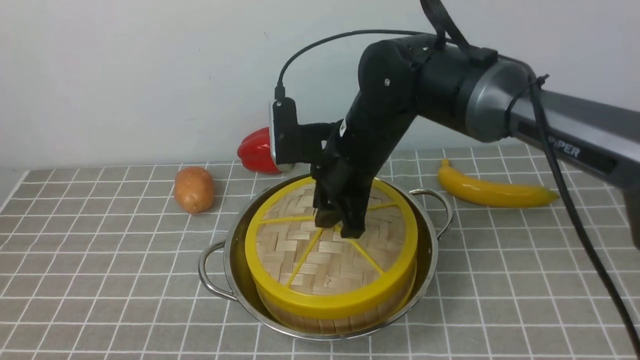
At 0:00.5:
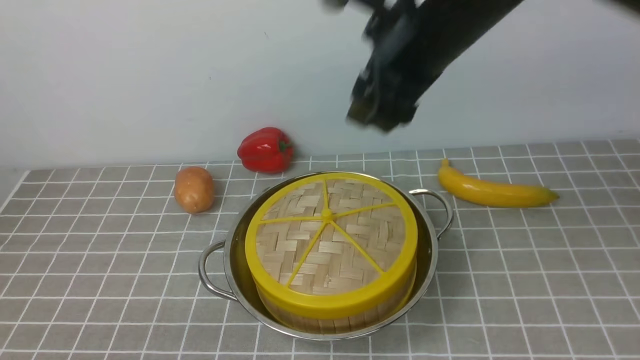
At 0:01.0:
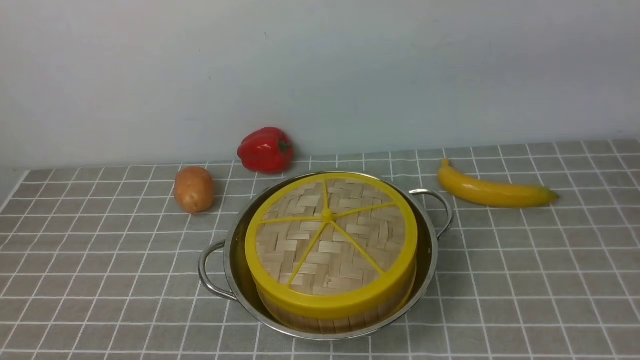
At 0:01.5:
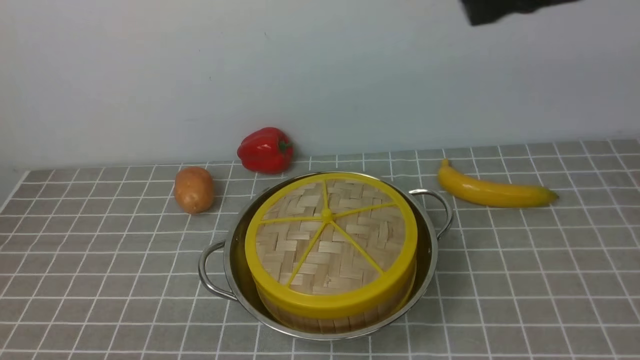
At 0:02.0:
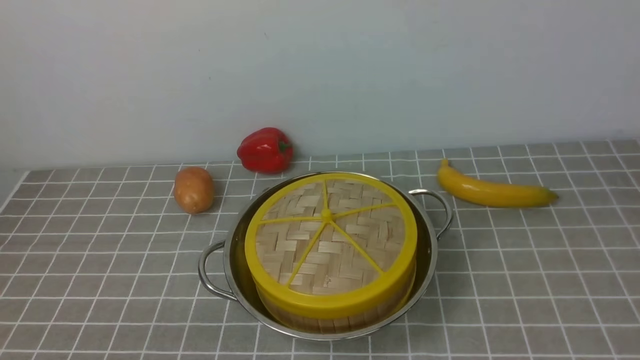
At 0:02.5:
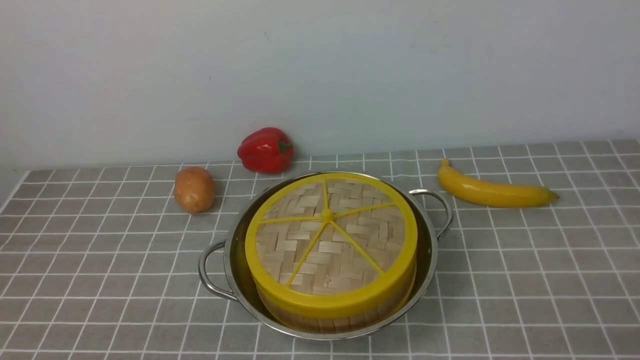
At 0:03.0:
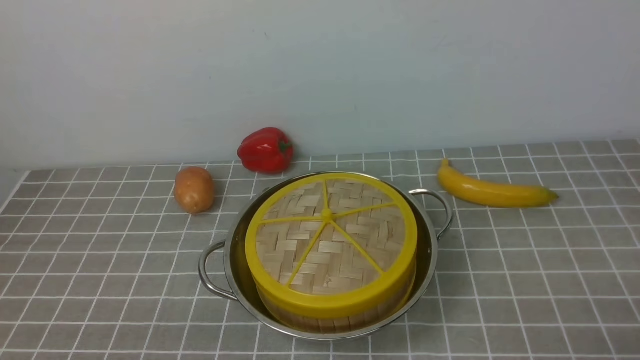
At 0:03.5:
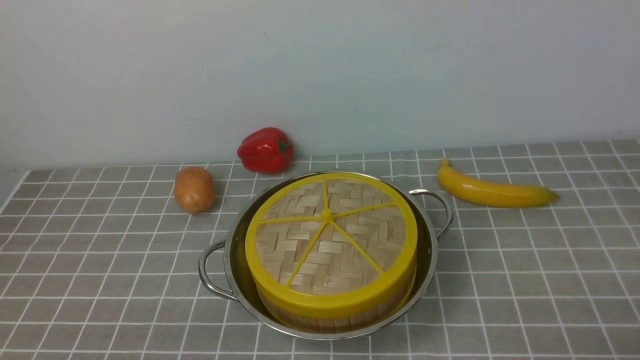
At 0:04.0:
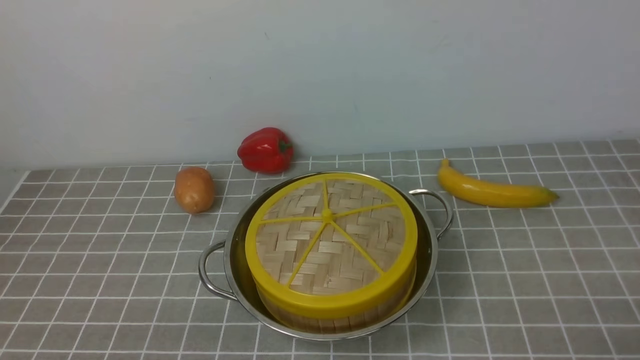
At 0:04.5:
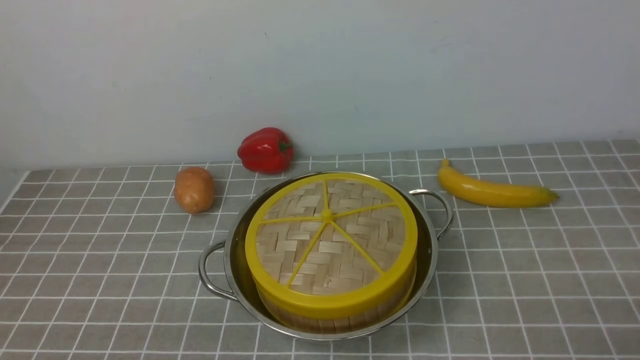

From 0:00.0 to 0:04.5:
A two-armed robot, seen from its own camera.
Task of the whole recording: place the steamer in the pot on the grey tablecloth, and put the lid on the steamer.
From 0:00.0 to 0:02.0: The right gripper moves to the right and backward, about 40 cm, and closes its fingers.

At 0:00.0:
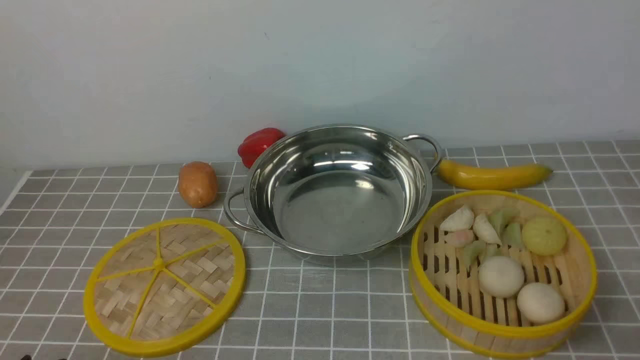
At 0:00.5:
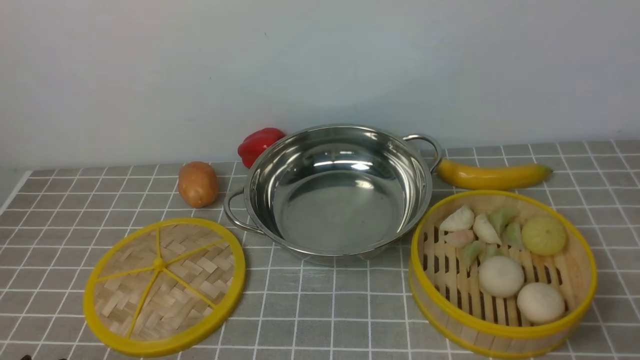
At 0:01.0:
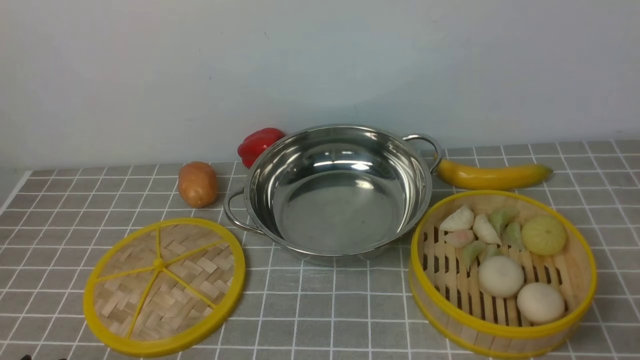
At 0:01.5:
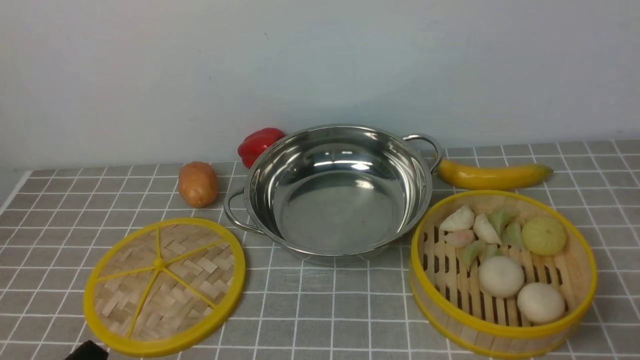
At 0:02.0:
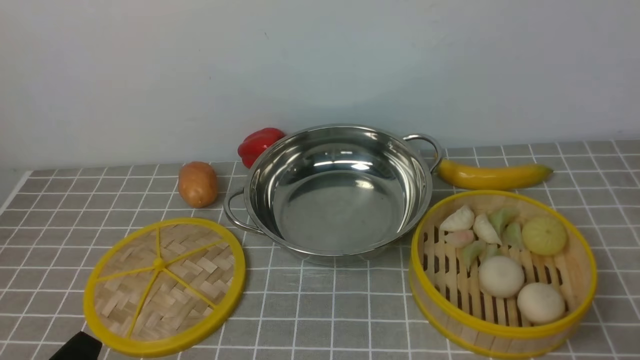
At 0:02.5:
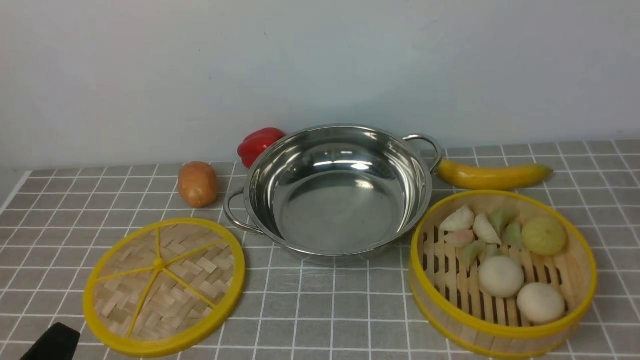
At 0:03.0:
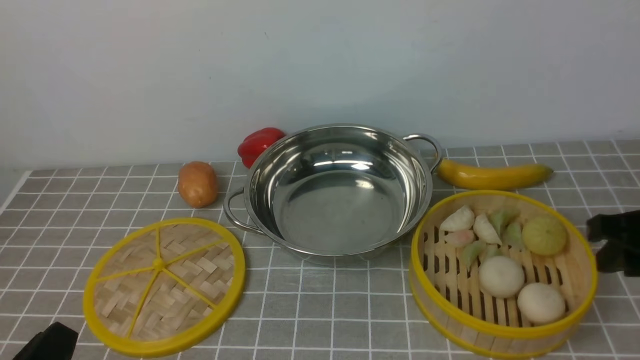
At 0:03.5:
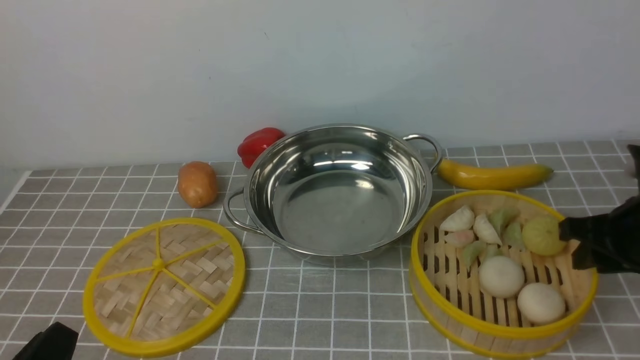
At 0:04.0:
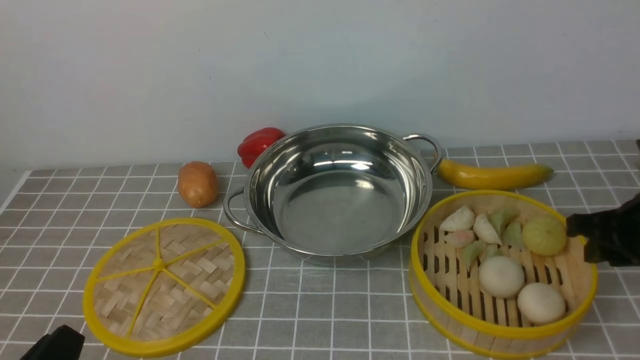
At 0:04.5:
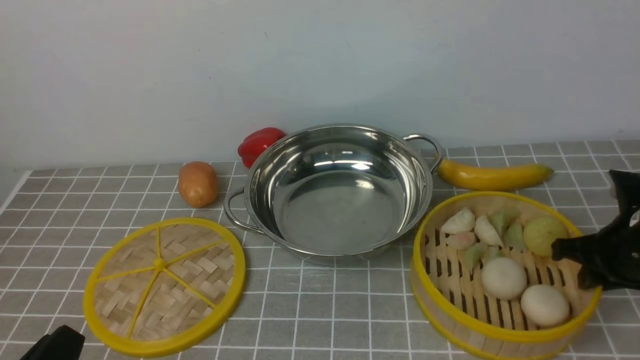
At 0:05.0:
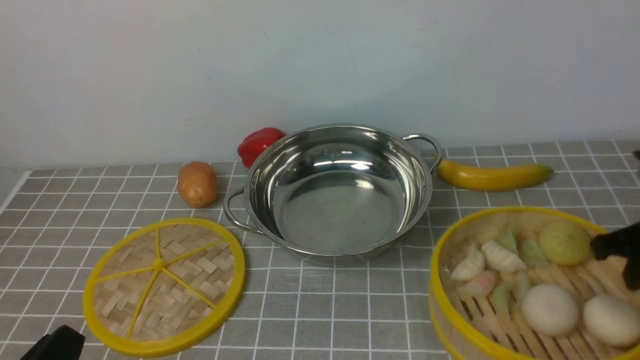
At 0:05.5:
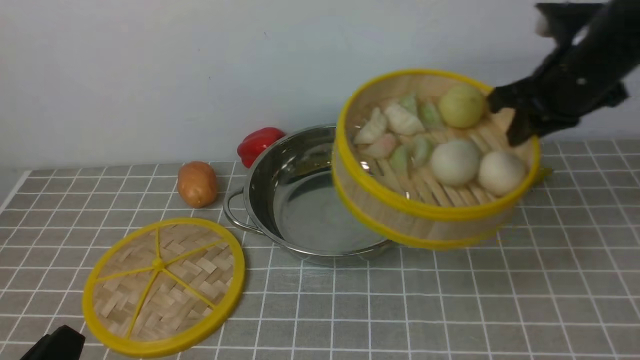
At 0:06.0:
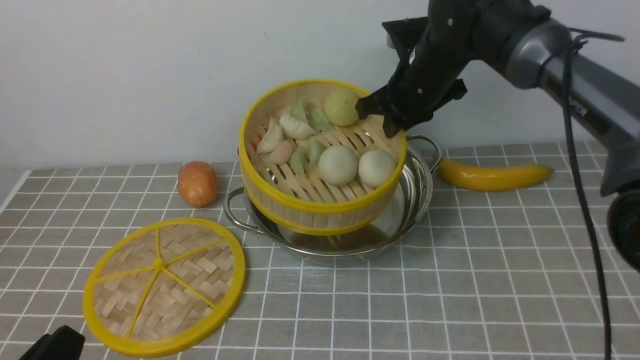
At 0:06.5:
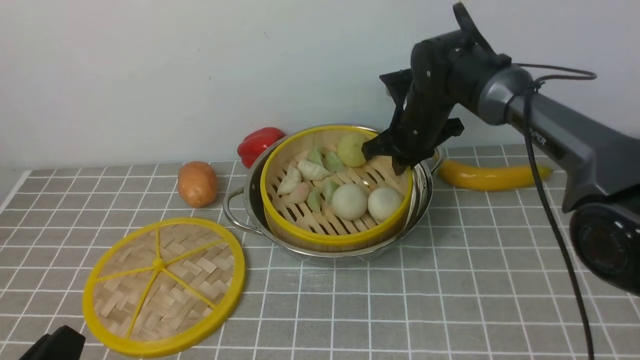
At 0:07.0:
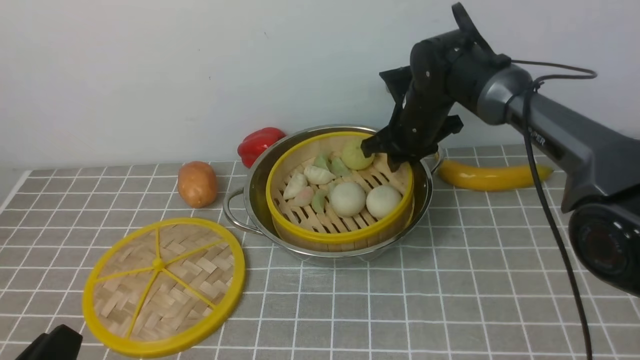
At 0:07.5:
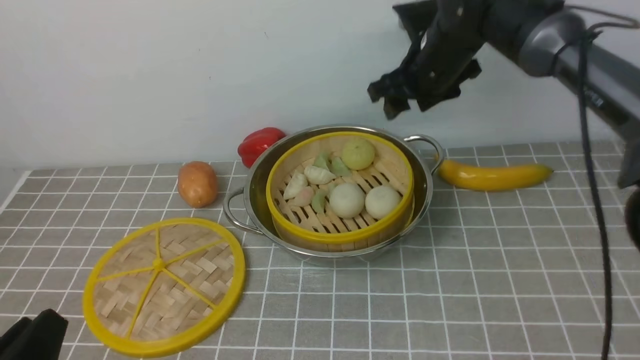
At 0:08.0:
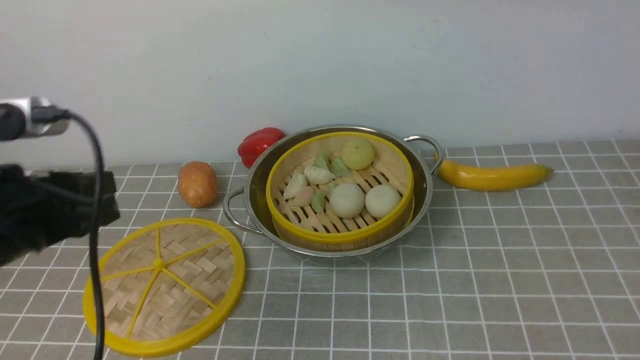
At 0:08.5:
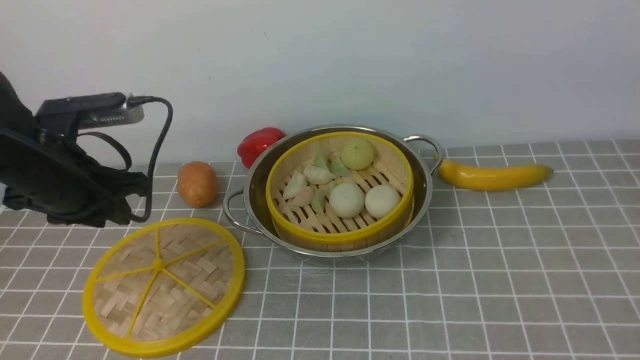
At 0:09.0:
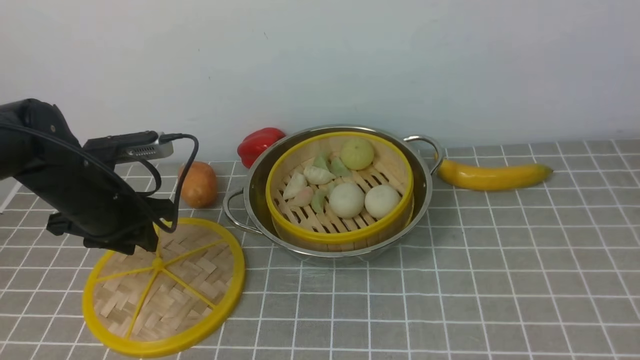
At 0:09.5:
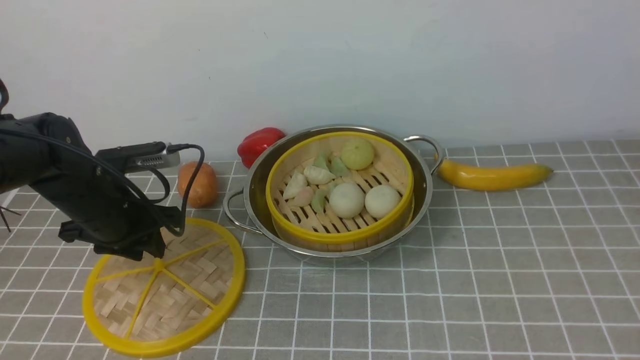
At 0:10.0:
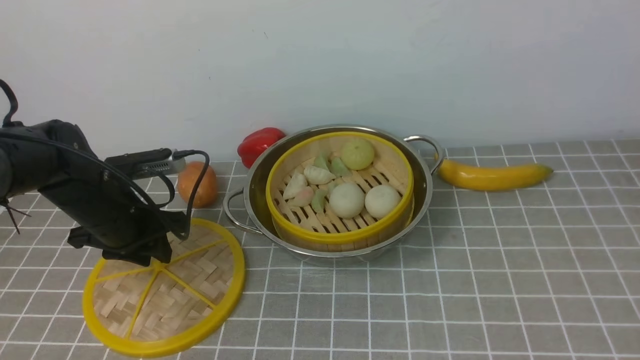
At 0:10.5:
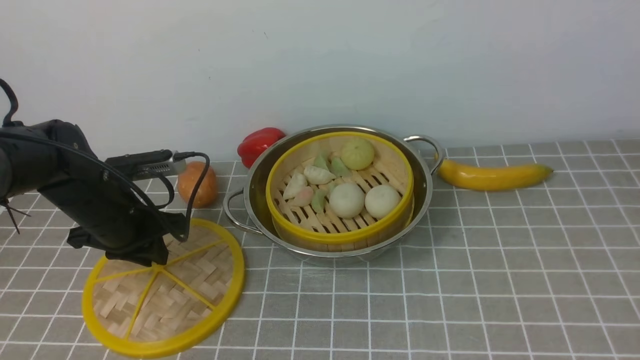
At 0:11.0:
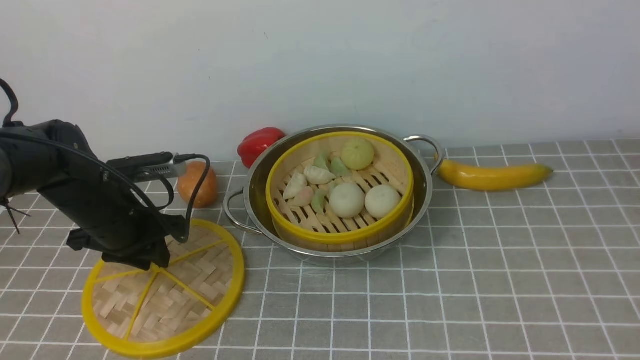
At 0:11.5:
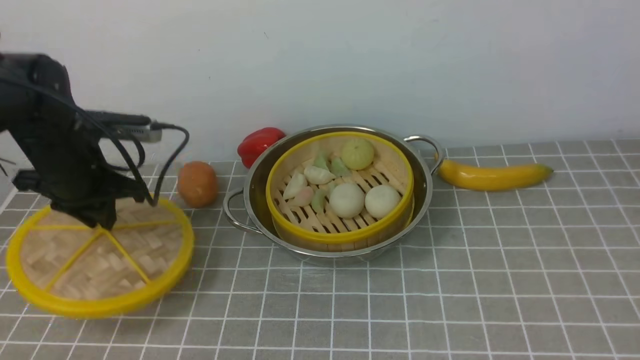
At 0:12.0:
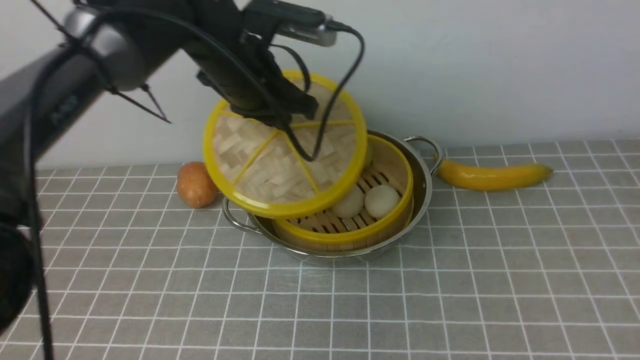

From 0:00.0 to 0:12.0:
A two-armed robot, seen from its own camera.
Task of the whole recording: place the steamer in the pot on the grey tablecloth, and put the lid on the steamer.
Step, from 0:00.0 to 0:04.5: use the right arm to lift the steamer closest to it.
Step, from 0:05.0 to 0:07.0: use the right arm to put the steamer into the iron steamer pot in the middle.
Step, from 0:07.5 to 0:11.0: use the left arm to lift the lid of the steamer.
From 0:02.0 to 0:04.0: The right gripper shifts approximately 25 cm forward.
From 0:04.0 to 0:06.0: The right gripper moves to the left and forward, roughly 25 cm, and closes up.
From 0:06.0 to 0:08.0: The right gripper is displaced upward and backward by about 30 cm, and opens up. Meanwhile the left gripper moves forward and upward, approximately 20 cm.
From 0:08.0 to 0:10.0: The left gripper travels forward and downward by roughly 20 cm. The right gripper is displaced backward by roughly 20 cm.
From 0:10.0 to 0:12.0: The left gripper goes some 20 cm to the right, upward and forward.

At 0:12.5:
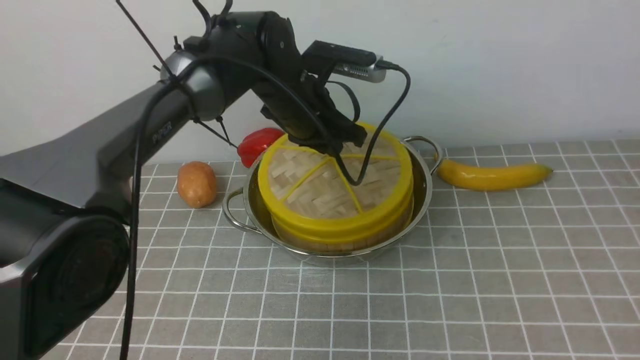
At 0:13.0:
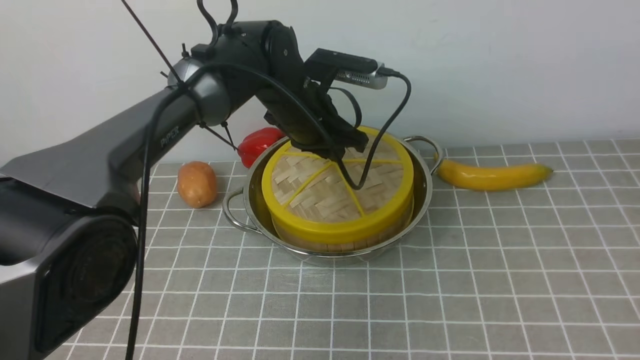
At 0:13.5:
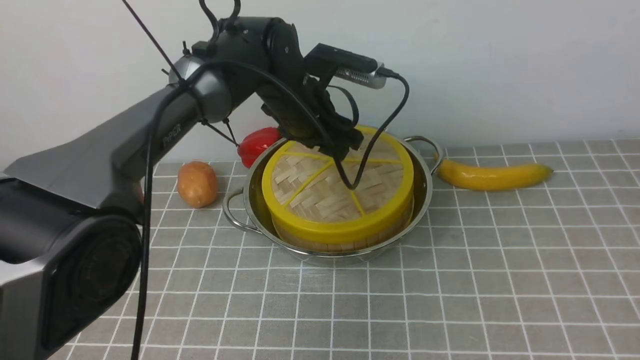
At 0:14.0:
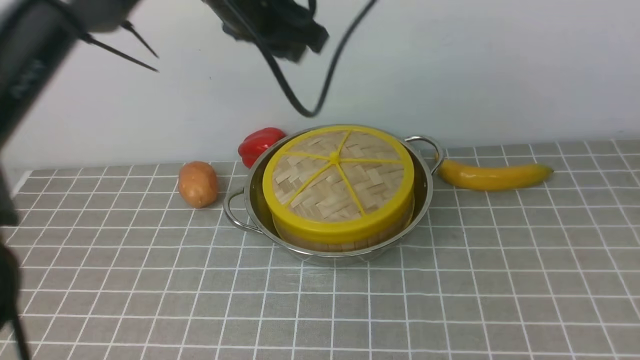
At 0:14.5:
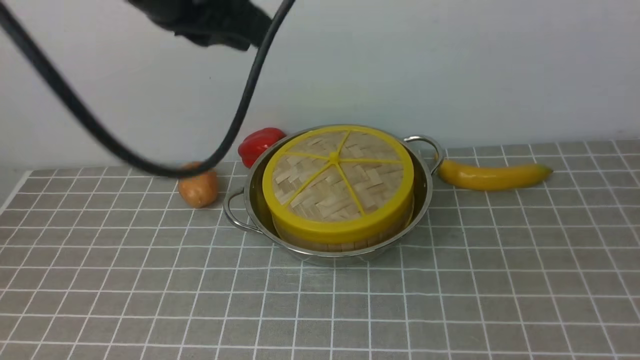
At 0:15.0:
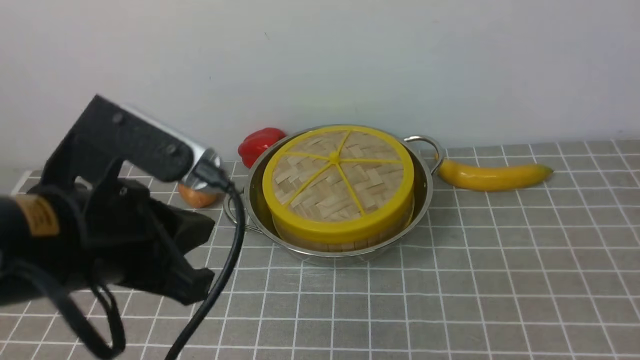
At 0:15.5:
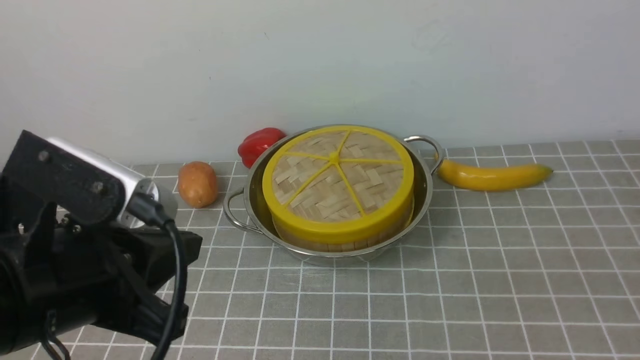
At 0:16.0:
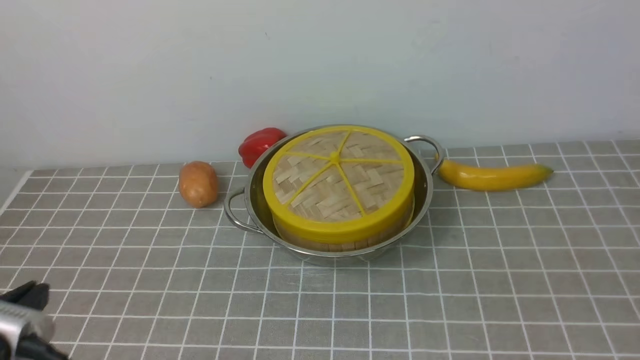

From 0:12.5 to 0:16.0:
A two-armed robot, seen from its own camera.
Task of the whole recording: place the steamer in the pot on the grey tablecloth, and put the lid on the steamer.
From 0:12.5 to 0:14.5: The left gripper shifts approximately 25 cm upward and backward, and opens, then closes once more, while the right gripper shifts about 15 cm downward, and closes its fingers.
From 0:14.5 to 0:16.0: The left gripper is displaced backward, downward and to the left by some 30 cm.
